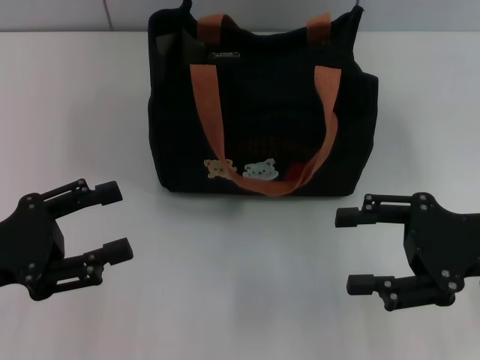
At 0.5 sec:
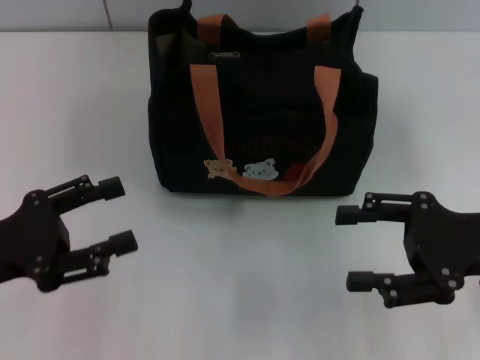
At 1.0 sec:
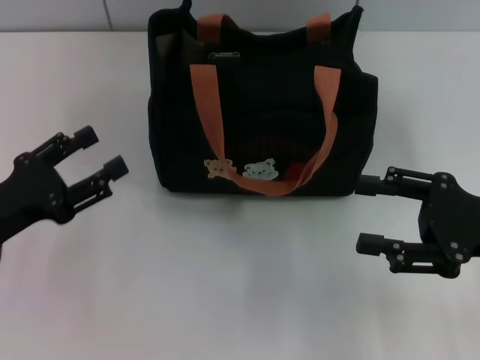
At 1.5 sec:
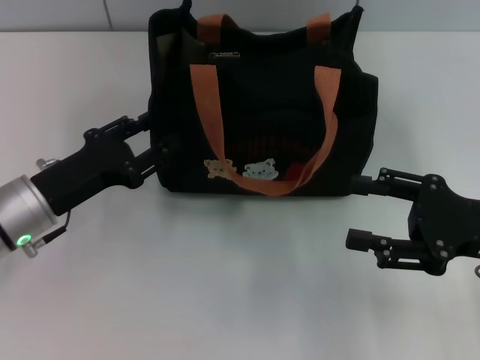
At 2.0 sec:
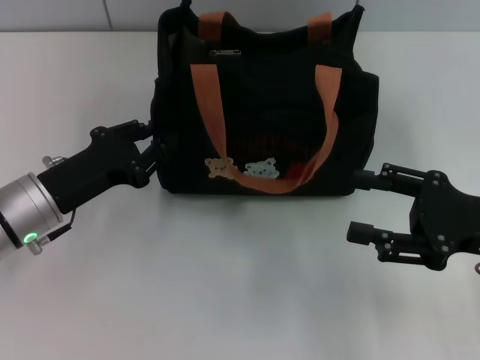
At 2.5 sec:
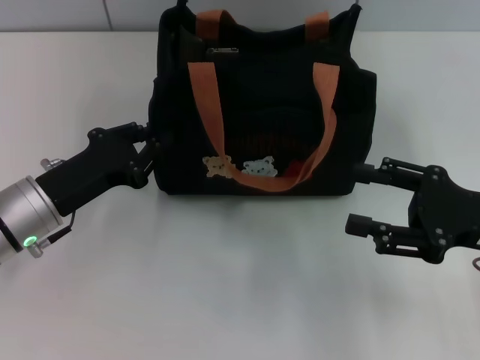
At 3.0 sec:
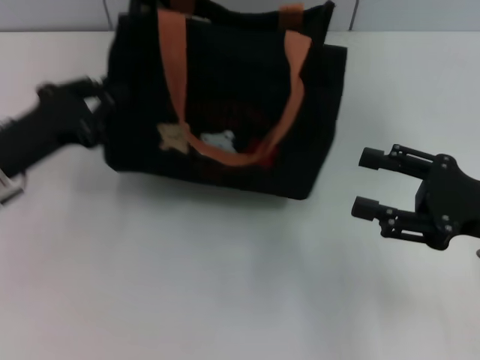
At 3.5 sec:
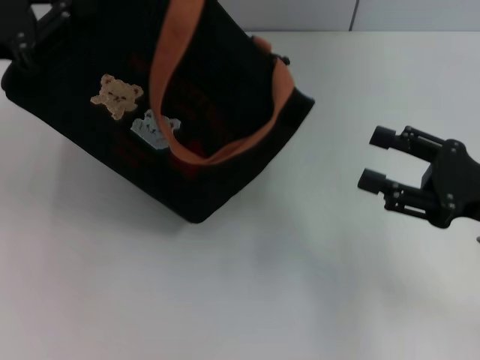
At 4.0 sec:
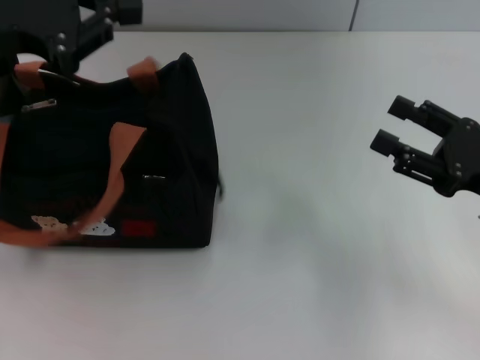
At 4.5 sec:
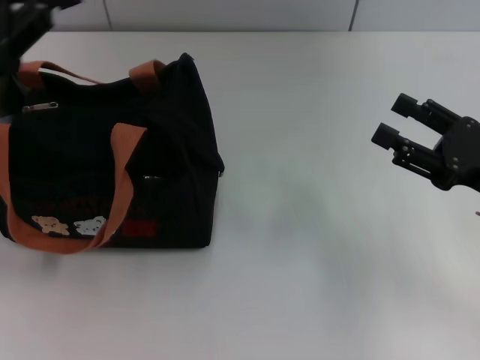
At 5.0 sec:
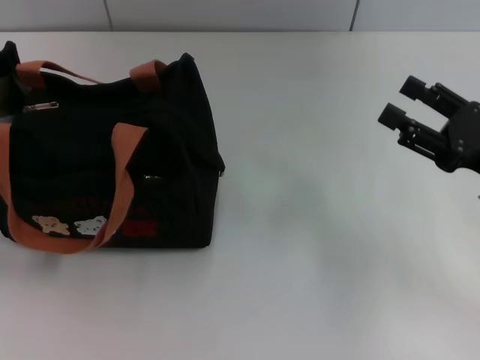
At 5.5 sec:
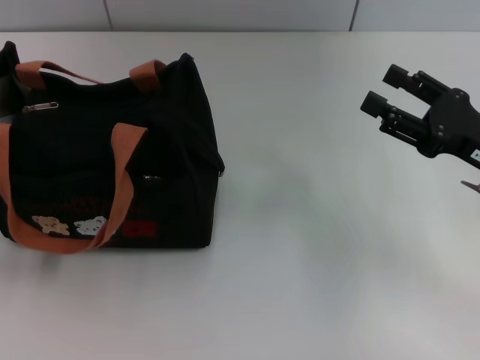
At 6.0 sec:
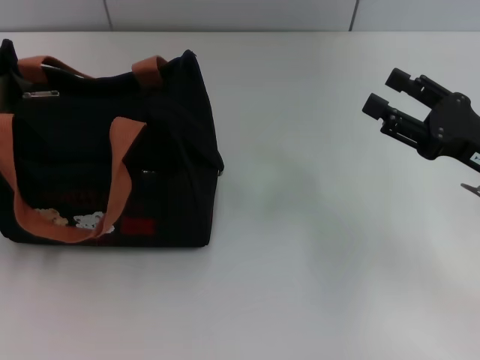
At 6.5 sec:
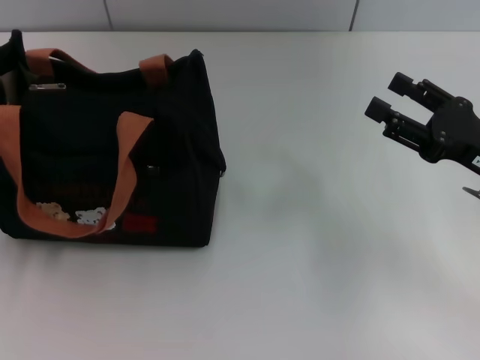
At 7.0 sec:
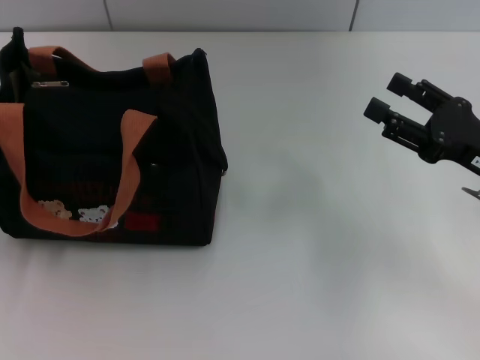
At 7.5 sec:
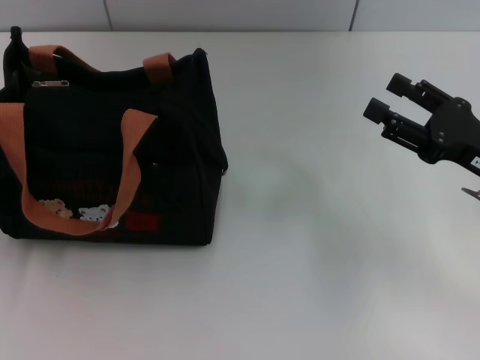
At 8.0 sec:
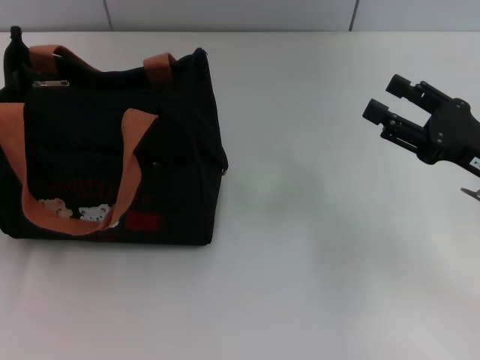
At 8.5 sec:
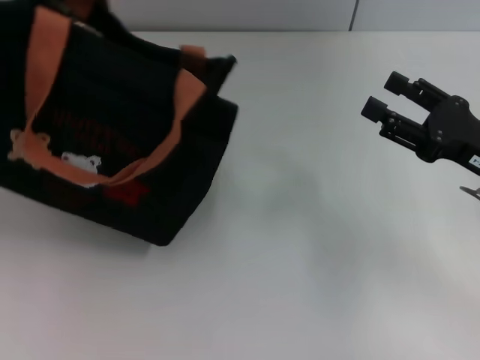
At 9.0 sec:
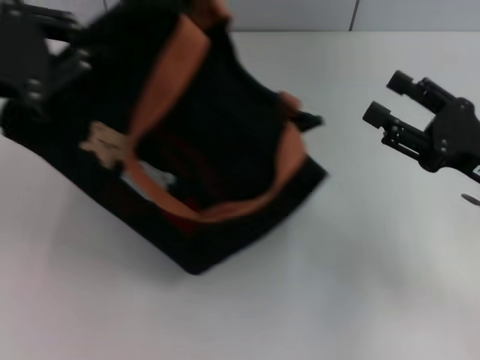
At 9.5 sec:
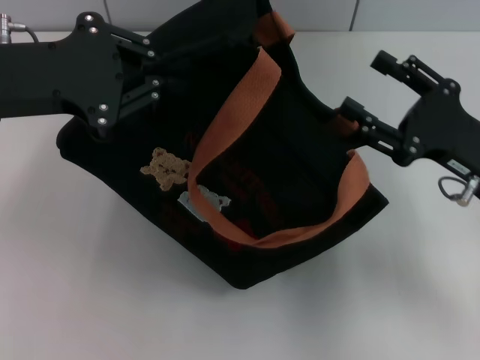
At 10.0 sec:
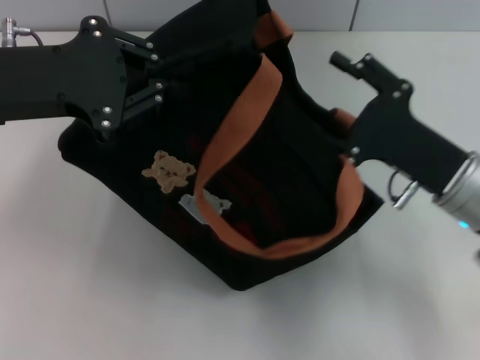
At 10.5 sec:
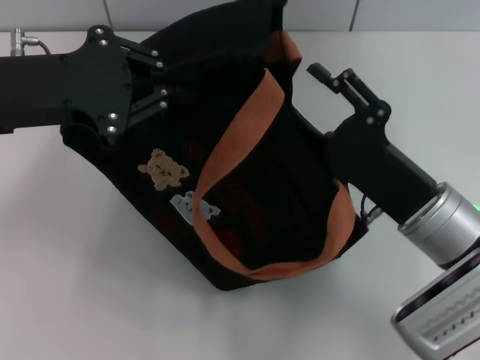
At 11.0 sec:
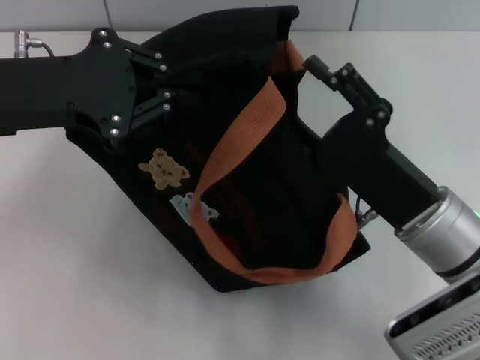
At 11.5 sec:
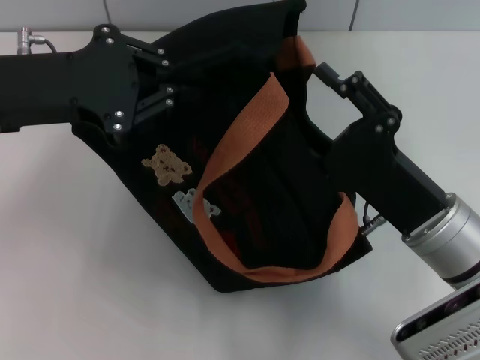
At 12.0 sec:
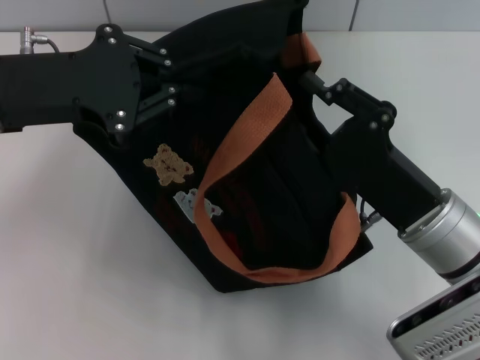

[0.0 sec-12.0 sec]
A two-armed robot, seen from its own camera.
0.0 sec to 2.0 sec: The left gripper shifts about 10 cm forward and to the right, and closes its fingers.
2.0 sec to 4.0 sec: The left gripper shifts some 20 cm upward, and closes up.
4.0 sec to 6.0 sec: The left gripper is displaced downward, backward and to the left by about 25 cm, and opens.
6.0 sec to 8.0 sec: The left gripper closes up.
8.0 sec to 10.0 sec: The right gripper goes approximately 5 cm to the left; the left gripper goes some 20 cm upward, to the right and forward.
10.0 sec to 12.0 sec: The right gripper ends up roughly 5 cm from where it was.

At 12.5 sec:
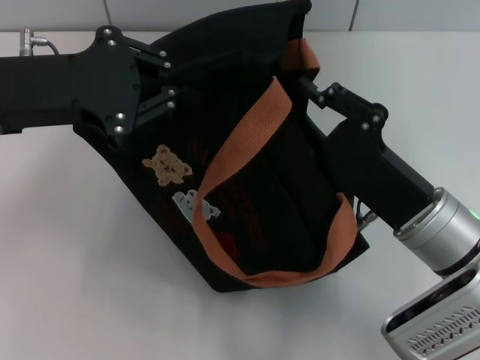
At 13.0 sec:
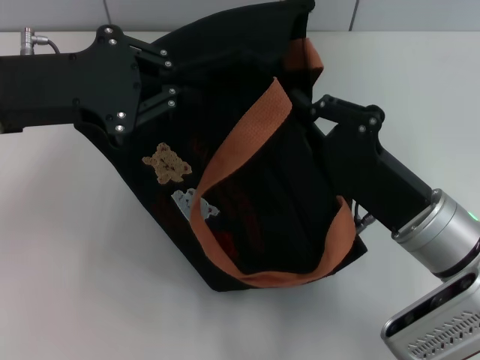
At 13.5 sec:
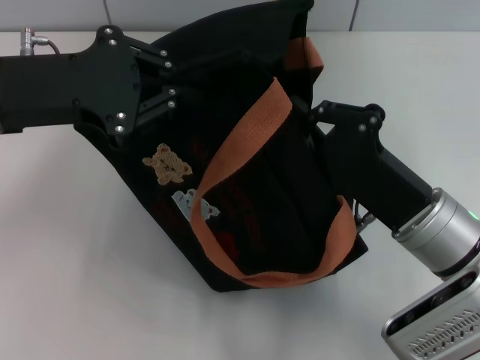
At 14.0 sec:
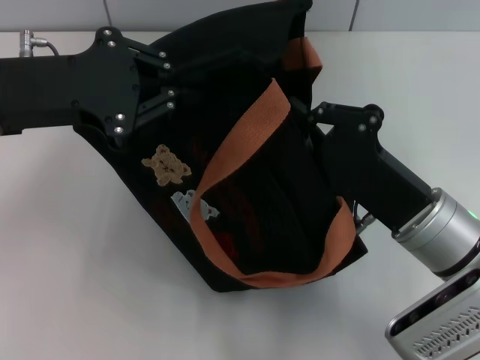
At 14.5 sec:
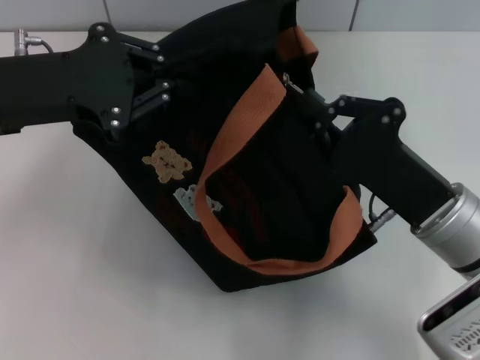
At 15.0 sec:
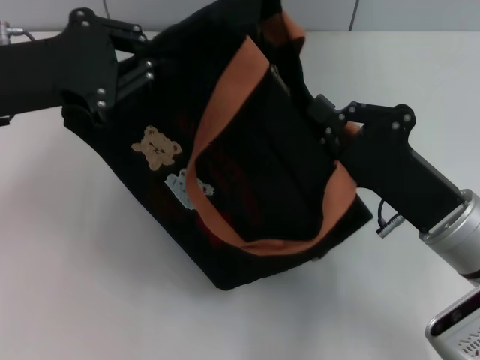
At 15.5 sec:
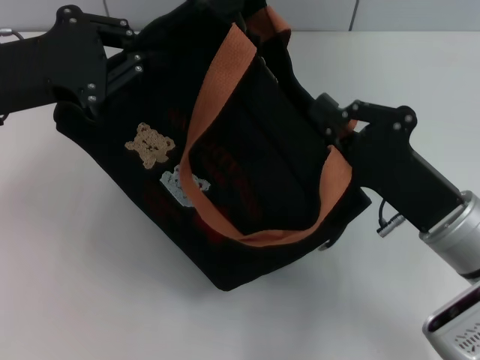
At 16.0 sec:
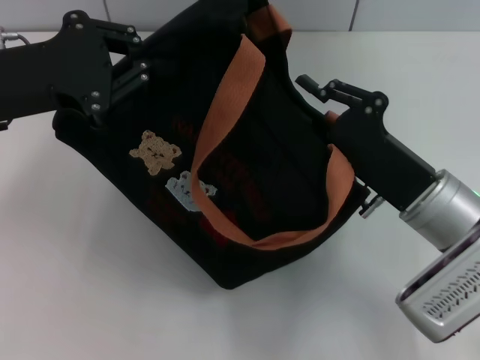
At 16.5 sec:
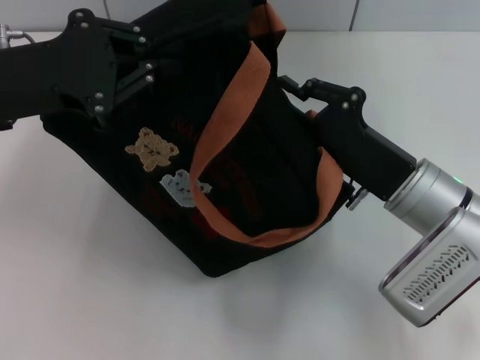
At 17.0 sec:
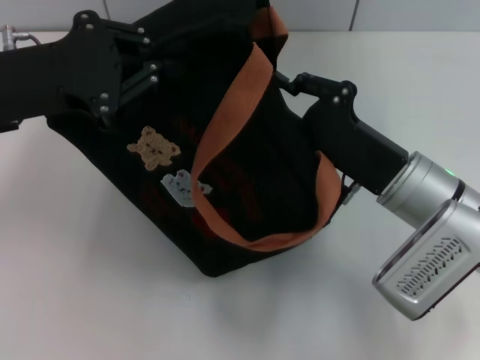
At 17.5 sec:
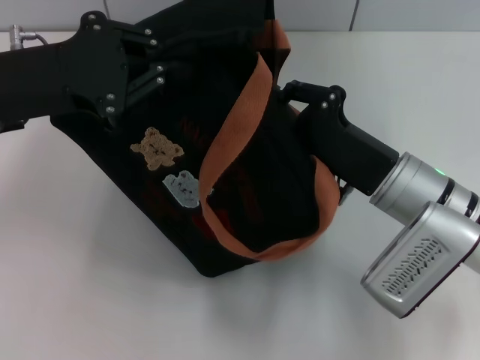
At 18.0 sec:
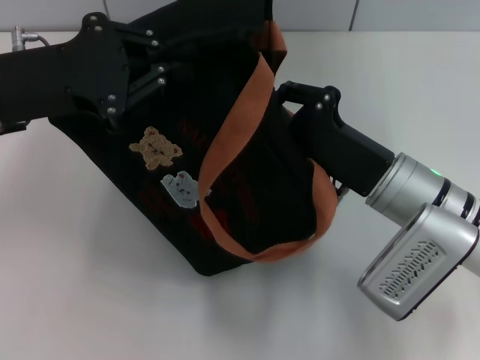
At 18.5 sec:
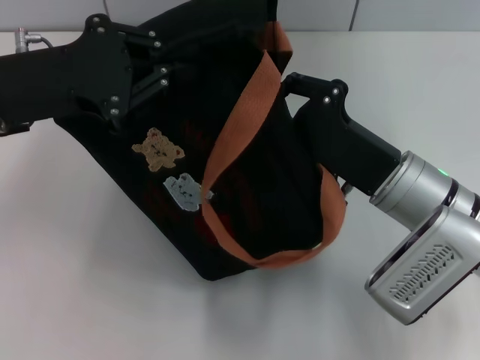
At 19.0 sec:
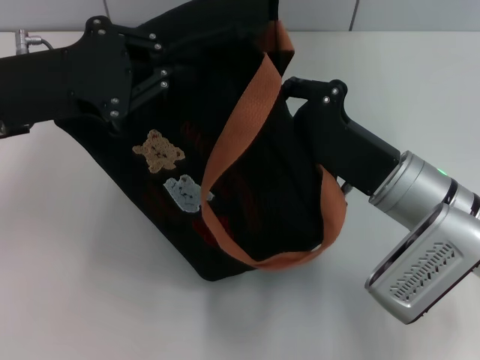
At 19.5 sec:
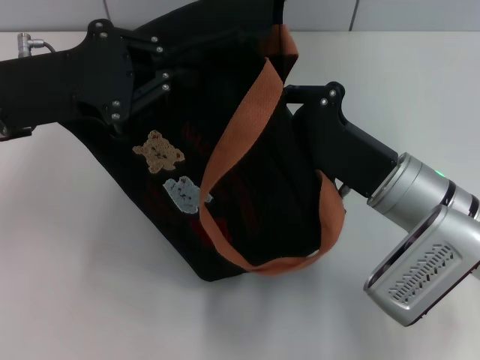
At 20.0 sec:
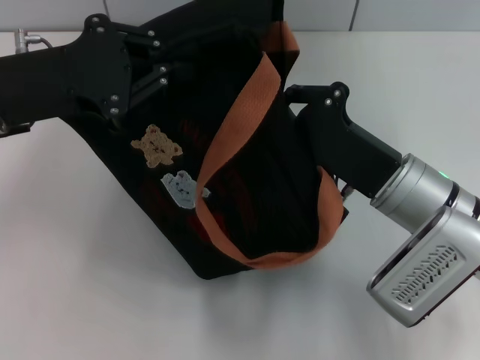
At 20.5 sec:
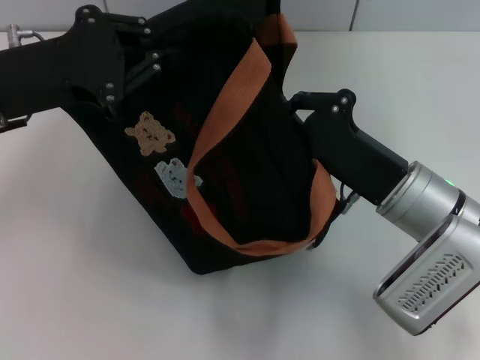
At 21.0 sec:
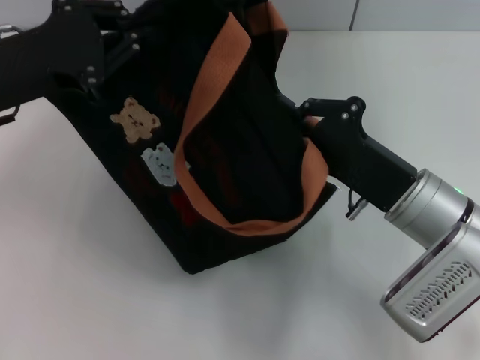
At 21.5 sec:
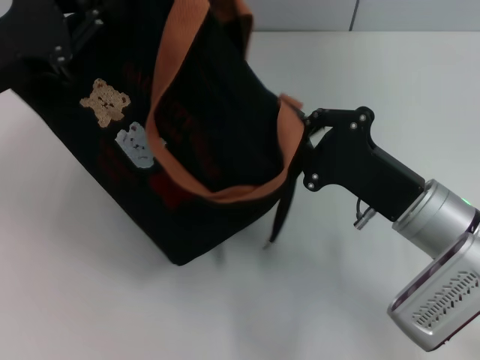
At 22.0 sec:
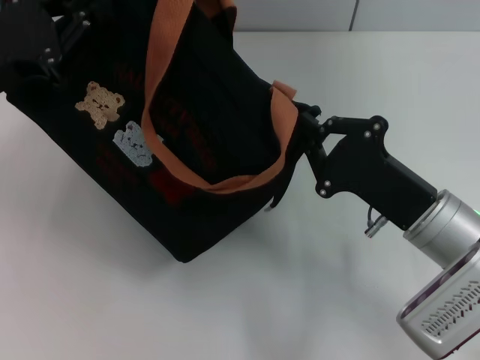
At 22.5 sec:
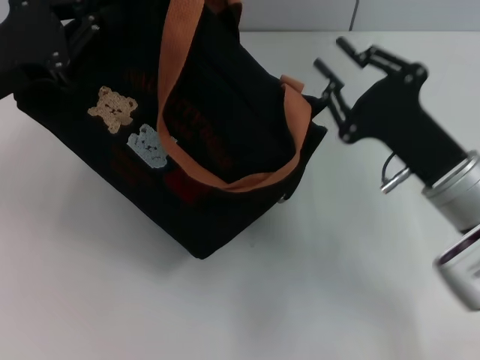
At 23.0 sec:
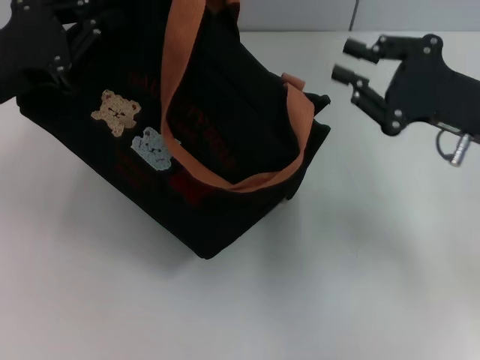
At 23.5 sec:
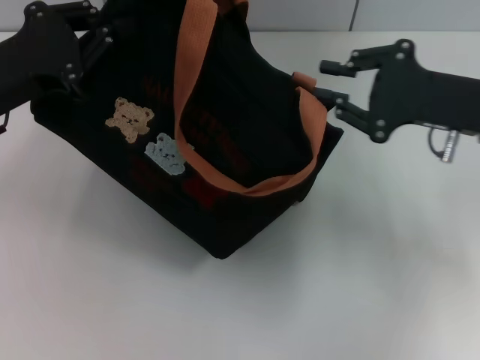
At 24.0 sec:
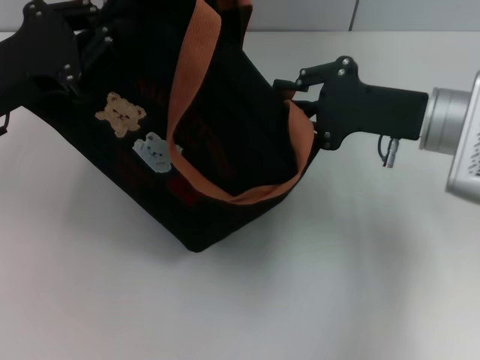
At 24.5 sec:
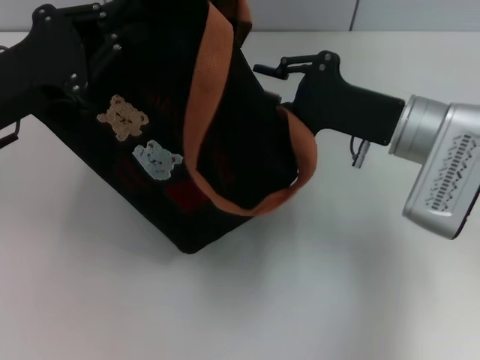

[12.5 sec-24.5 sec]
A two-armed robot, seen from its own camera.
12.5 sec to 14.5 sec: The right gripper closes.
16.5 sec to 18.5 sec: The grippers stay close to where they were, moving slightly.
18.5 sec to 20.5 sec: The two grippers keep their place.
22.5 sec to 24.5 sec: The right gripper heads forward, covering roughly 5 cm, and reaches some 5 cm to the right, then returns.

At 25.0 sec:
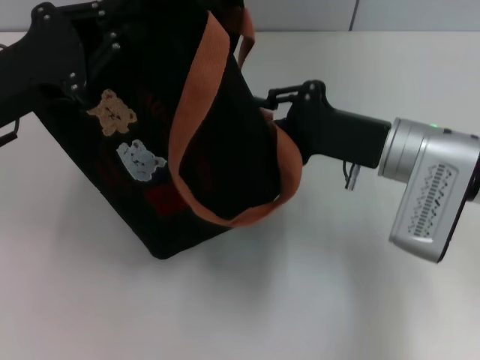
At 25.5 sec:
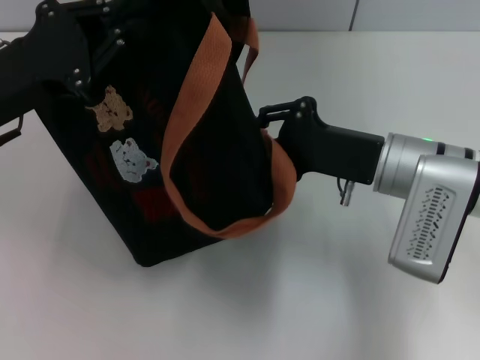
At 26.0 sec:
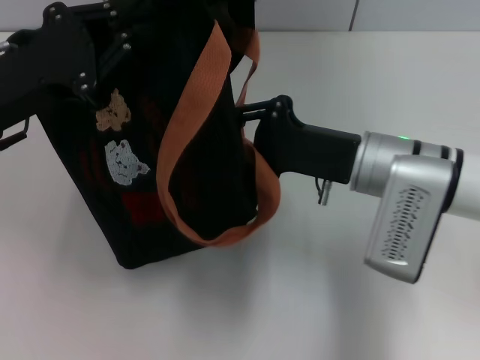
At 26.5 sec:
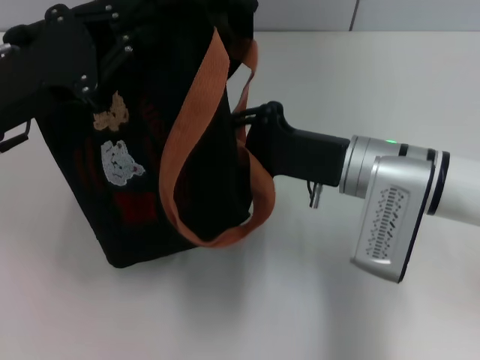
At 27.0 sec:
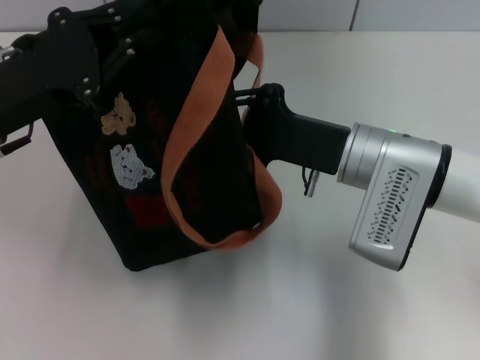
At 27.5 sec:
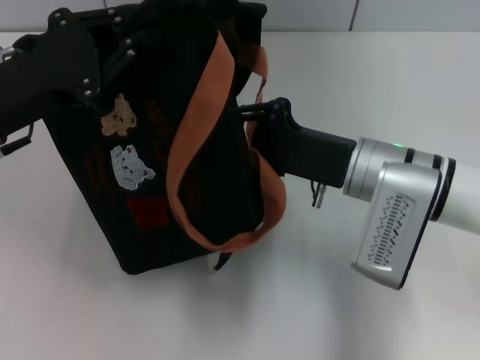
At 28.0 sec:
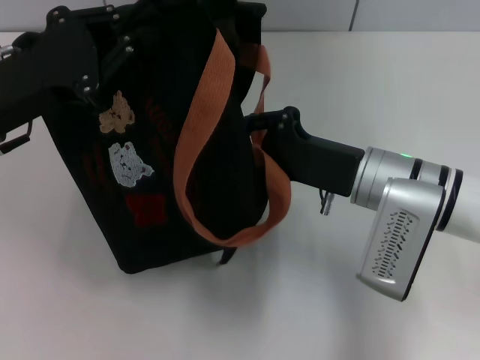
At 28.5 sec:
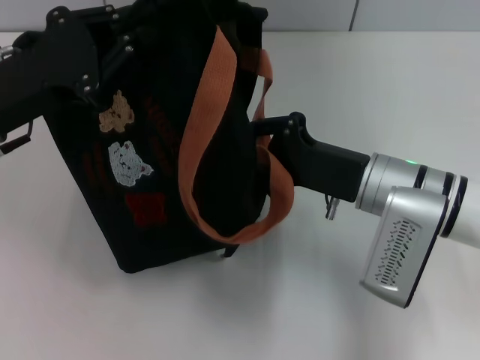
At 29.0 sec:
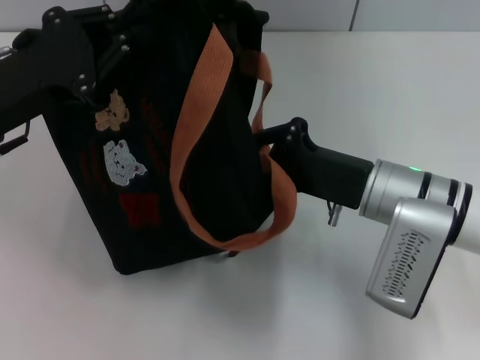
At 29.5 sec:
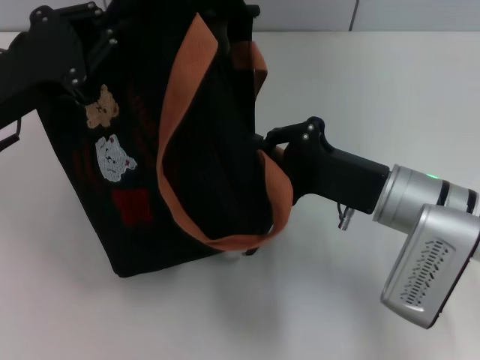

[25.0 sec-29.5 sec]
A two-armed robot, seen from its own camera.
27.0 sec to 29.5 sec: The right gripper changes place by some 5 cm.
